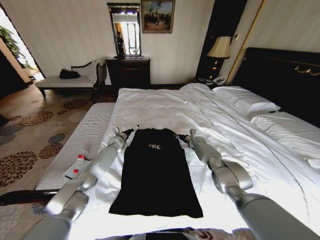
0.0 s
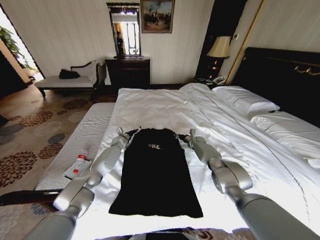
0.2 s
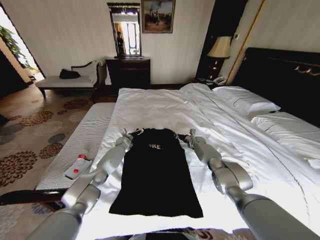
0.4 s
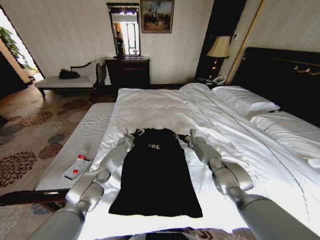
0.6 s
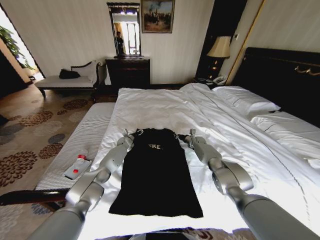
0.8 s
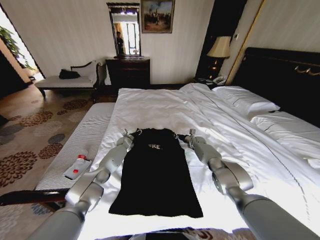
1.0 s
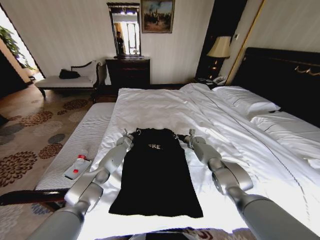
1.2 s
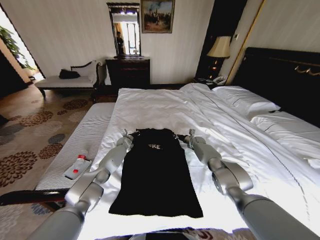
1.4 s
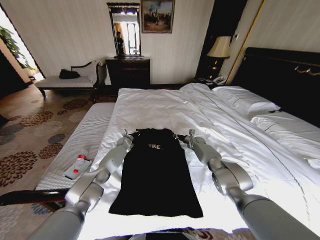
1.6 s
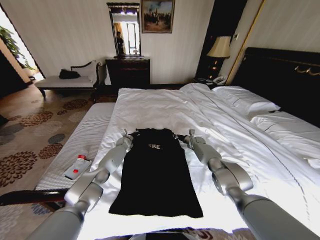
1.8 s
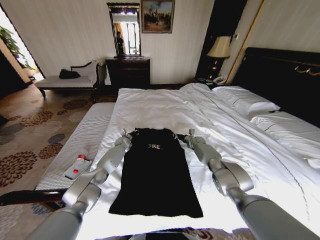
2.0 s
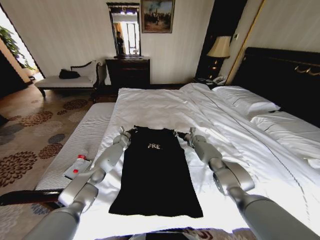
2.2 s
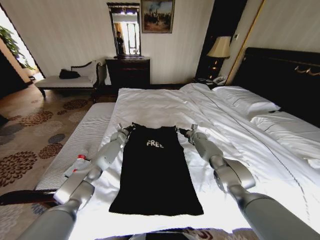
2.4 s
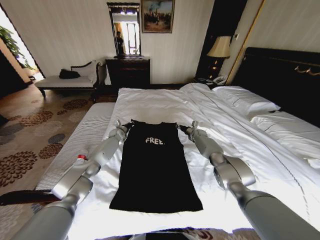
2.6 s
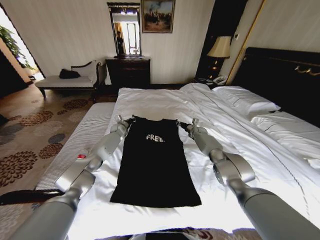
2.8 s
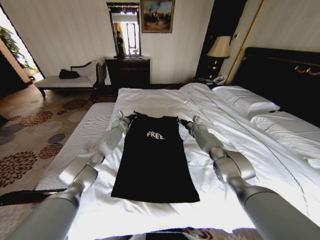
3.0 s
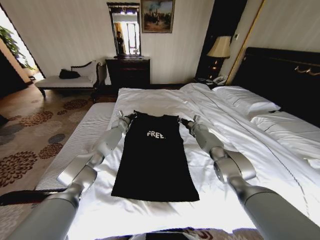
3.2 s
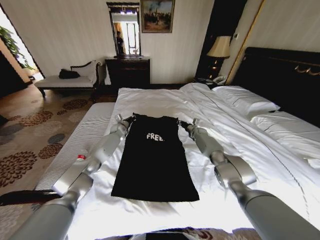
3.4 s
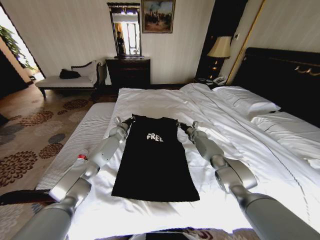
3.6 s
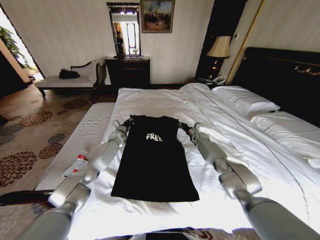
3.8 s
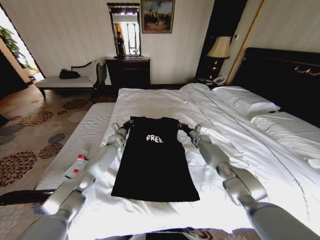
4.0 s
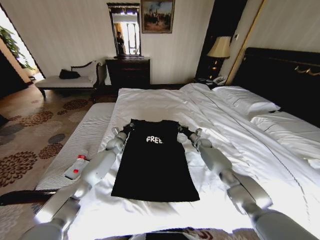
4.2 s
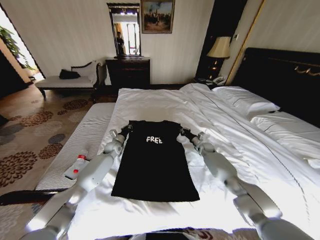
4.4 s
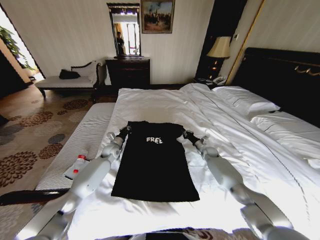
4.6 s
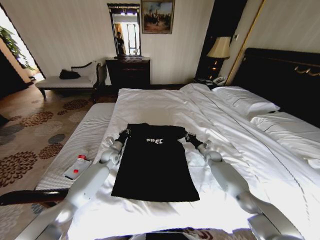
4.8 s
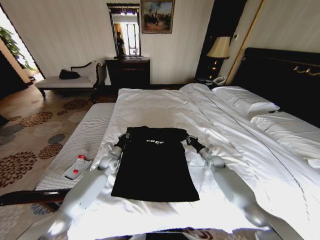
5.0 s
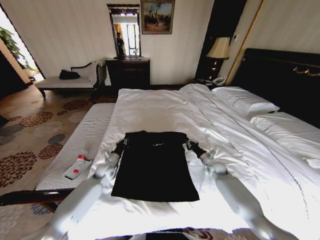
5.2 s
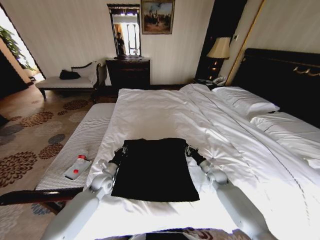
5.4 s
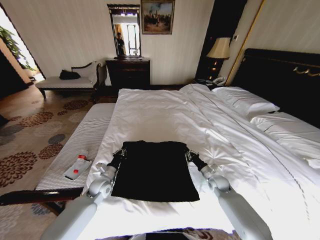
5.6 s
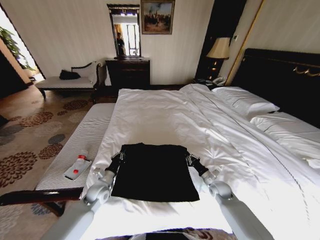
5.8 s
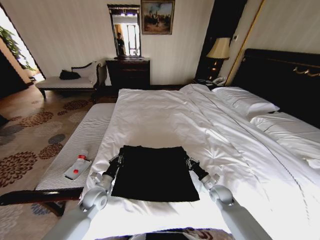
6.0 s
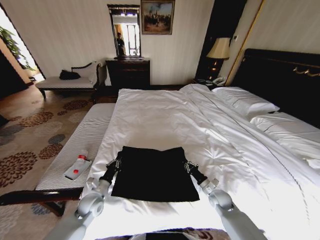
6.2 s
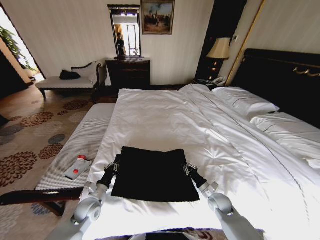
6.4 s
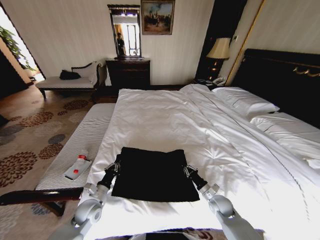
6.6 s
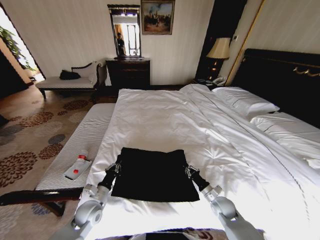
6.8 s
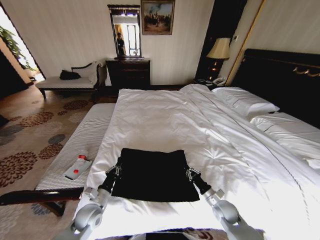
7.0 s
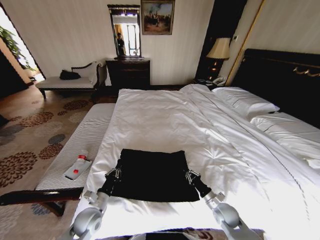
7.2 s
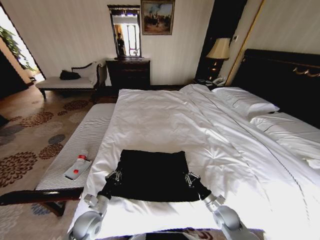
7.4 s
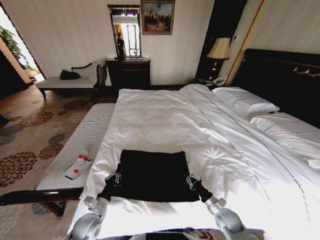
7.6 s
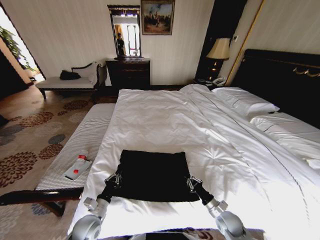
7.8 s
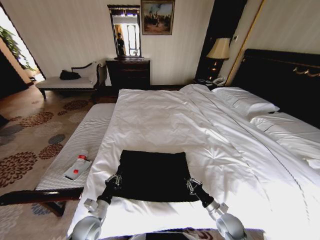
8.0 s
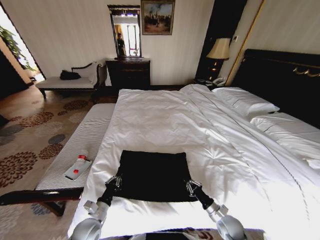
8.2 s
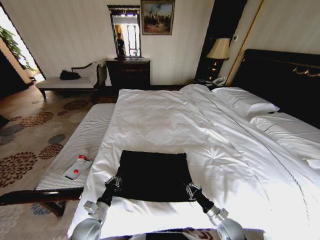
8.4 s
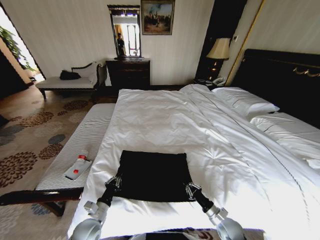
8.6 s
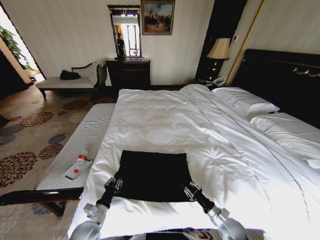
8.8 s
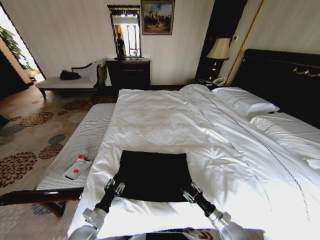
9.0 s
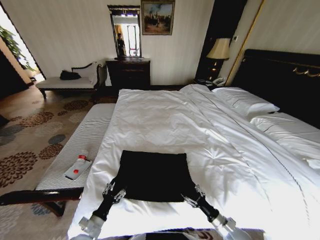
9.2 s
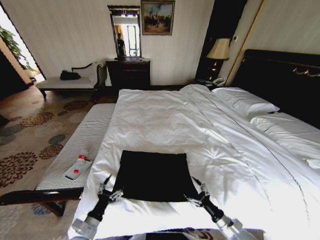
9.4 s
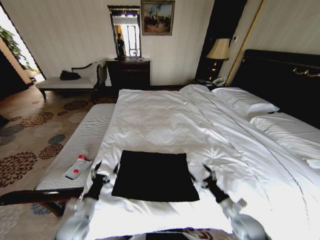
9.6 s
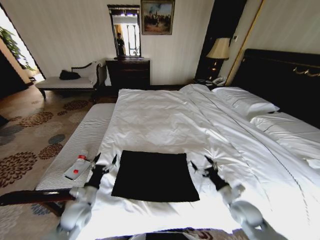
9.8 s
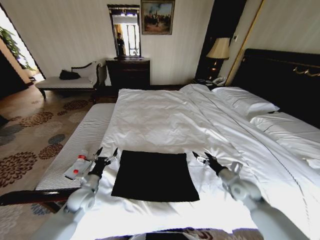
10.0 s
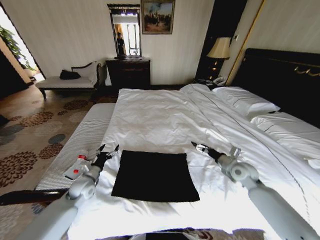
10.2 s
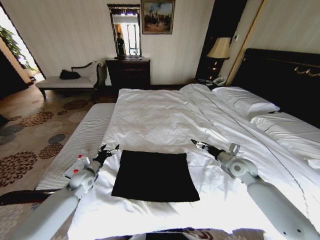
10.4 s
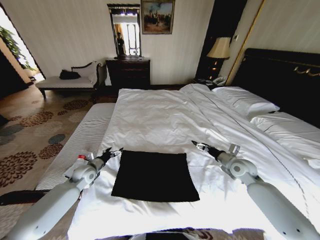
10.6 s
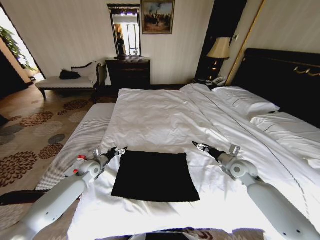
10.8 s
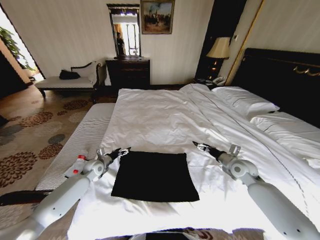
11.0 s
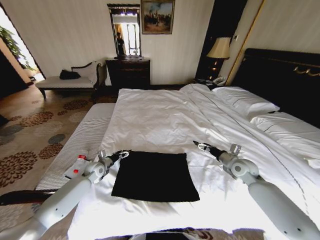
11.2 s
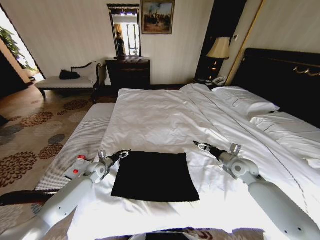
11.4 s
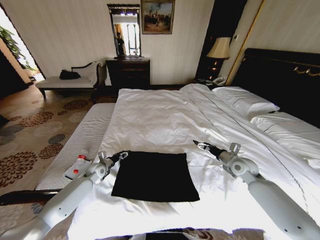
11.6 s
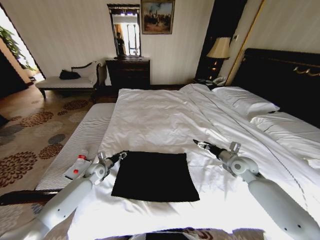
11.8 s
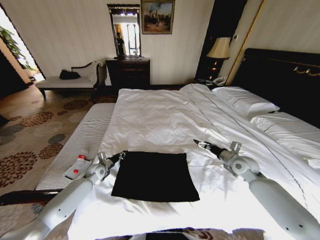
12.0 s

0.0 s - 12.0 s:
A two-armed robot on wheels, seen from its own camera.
Task of the whole recording: Fold the clothes on the bed.
0.0 s - 1.6 s: The left gripper changes place by about 5 cm, and closes its fingers.
1.6 s - 3.0 s: The left gripper is displaced upward and forward by approximately 10 cm. The right gripper is displaced upward by roughly 10 cm.
3.0 s - 4.4 s: Both grippers move backward and downward, about 15 cm.
4.4 s - 6.0 s: The two grippers go approximately 25 cm backward.
6.0 s - 7.6 s: The two grippers go about 10 cm backward.
7.6 s - 9.0 s: The left gripper opens its fingers. The right gripper shifts by approximately 5 cm, and opens its fingers.
9.0 s - 10.4 s: The right gripper shifts roughly 30 cm forward and upward, and opens up; the left gripper travels forward by some 20 cm, and opens its fingers.
10.4 s - 12.0 s: The left gripper heads forward and downward, covering about 10 cm, and closes up.

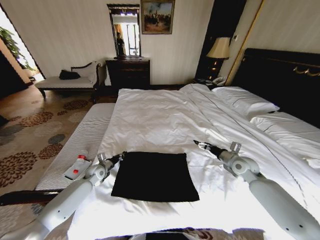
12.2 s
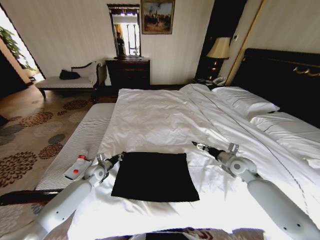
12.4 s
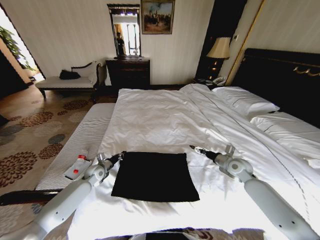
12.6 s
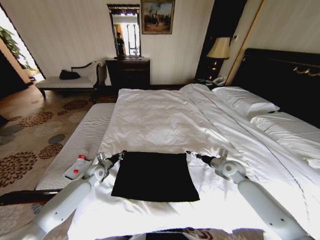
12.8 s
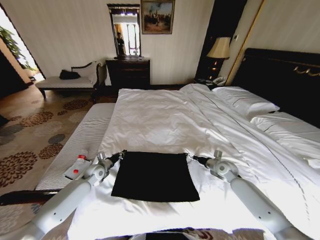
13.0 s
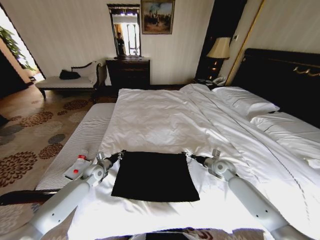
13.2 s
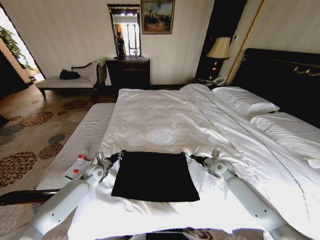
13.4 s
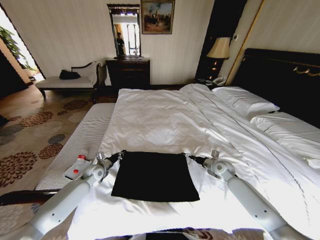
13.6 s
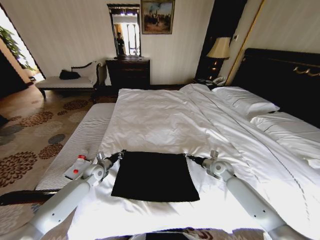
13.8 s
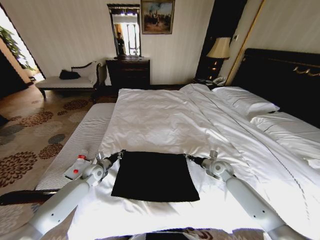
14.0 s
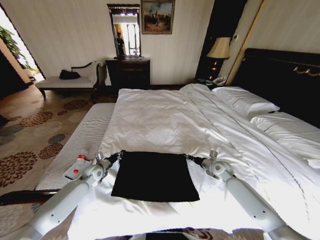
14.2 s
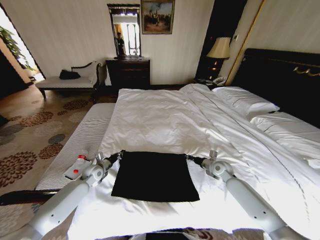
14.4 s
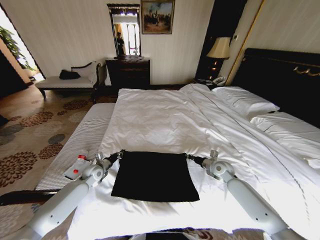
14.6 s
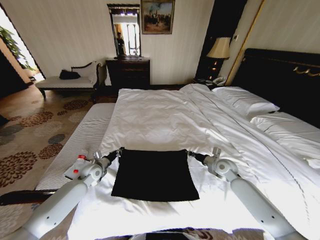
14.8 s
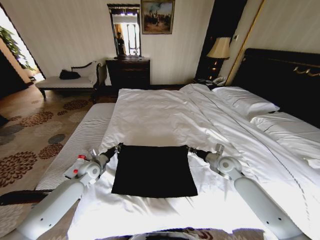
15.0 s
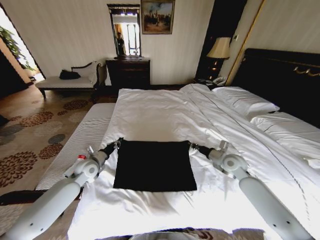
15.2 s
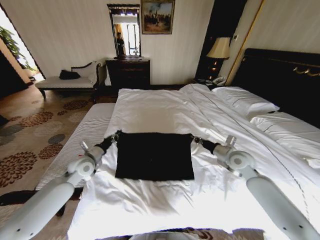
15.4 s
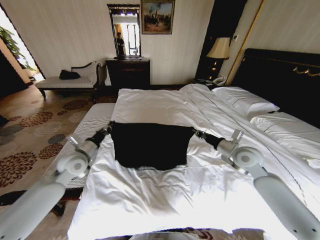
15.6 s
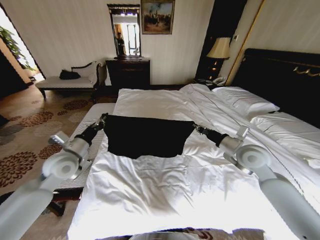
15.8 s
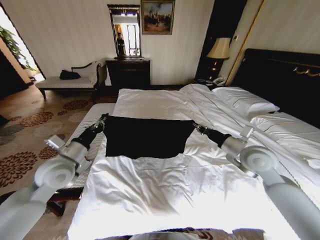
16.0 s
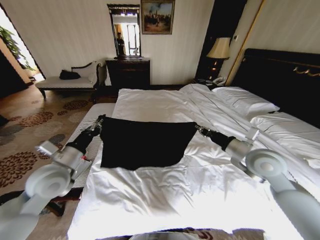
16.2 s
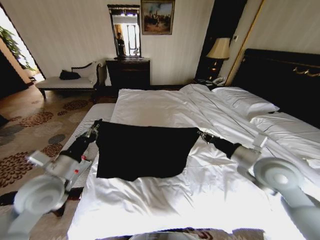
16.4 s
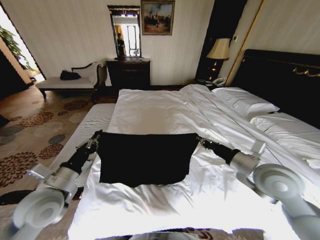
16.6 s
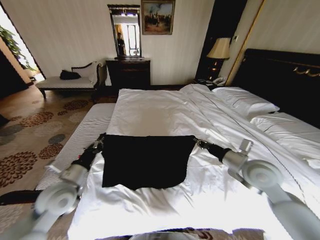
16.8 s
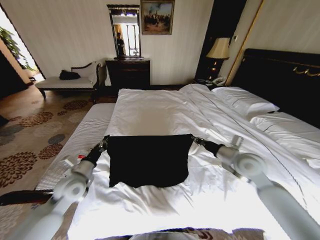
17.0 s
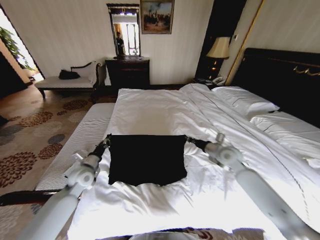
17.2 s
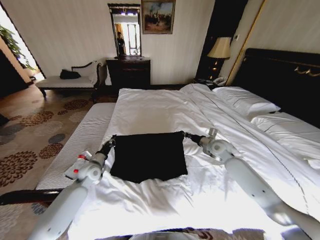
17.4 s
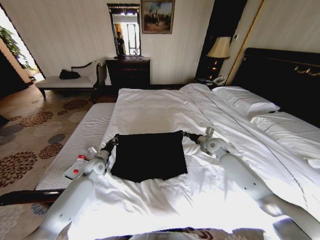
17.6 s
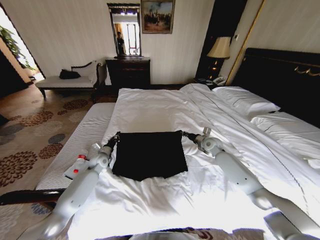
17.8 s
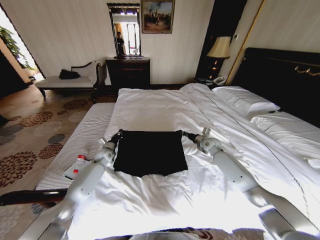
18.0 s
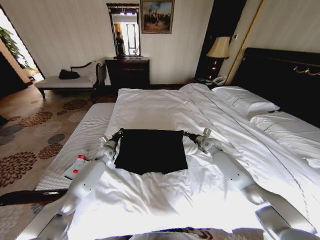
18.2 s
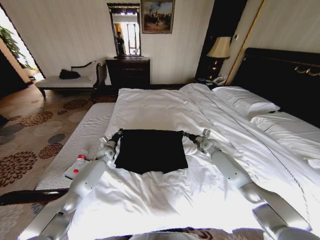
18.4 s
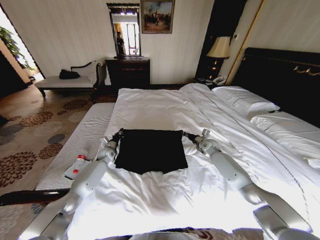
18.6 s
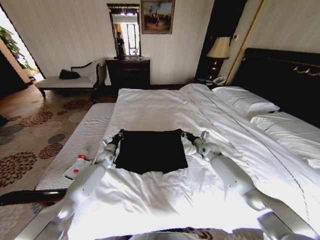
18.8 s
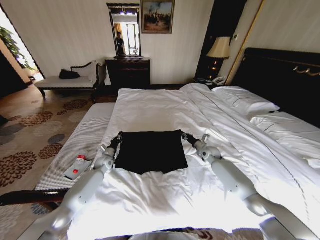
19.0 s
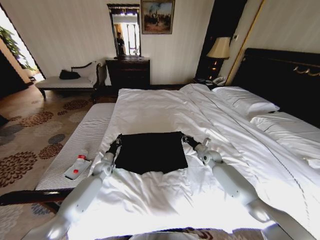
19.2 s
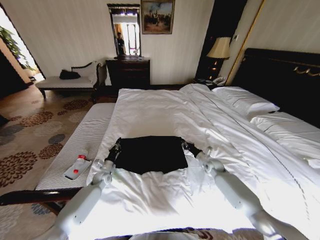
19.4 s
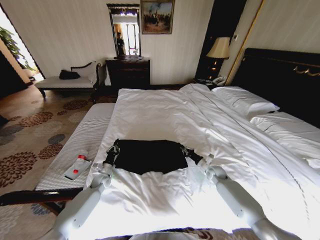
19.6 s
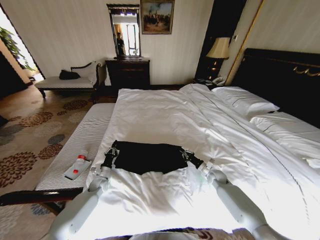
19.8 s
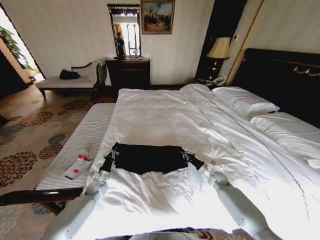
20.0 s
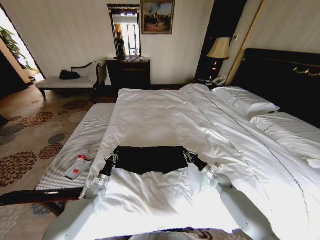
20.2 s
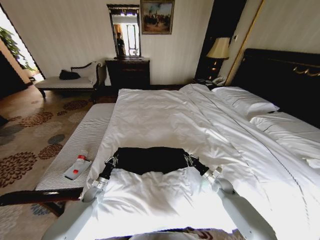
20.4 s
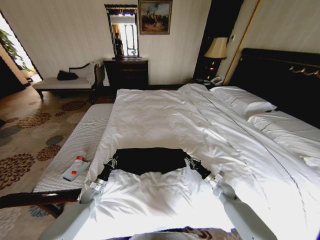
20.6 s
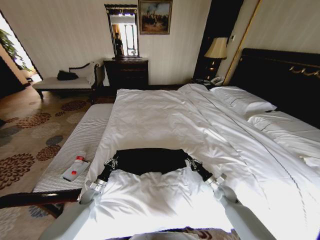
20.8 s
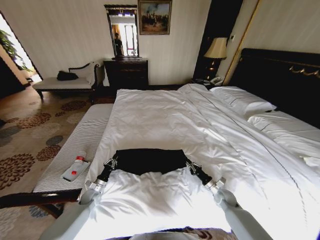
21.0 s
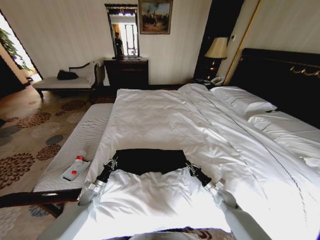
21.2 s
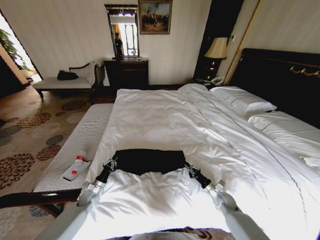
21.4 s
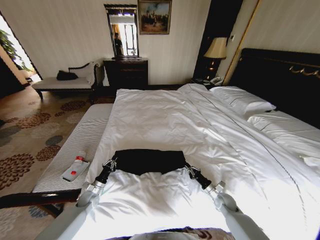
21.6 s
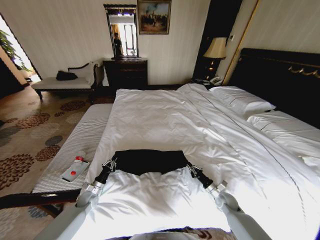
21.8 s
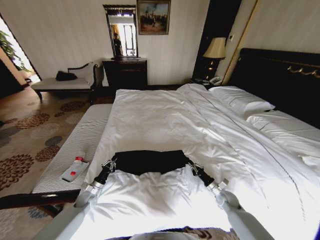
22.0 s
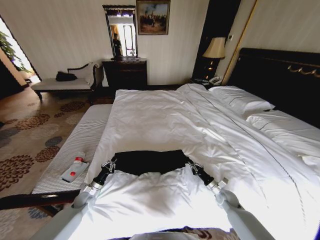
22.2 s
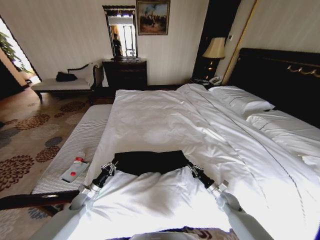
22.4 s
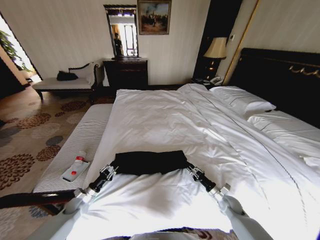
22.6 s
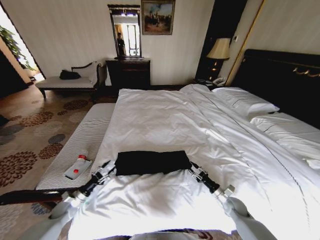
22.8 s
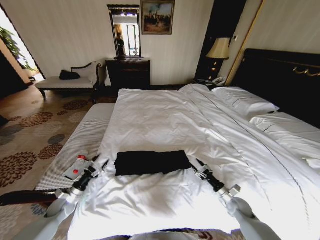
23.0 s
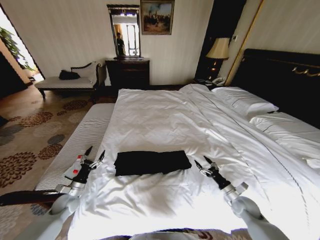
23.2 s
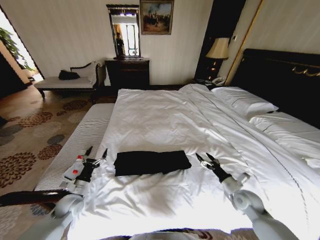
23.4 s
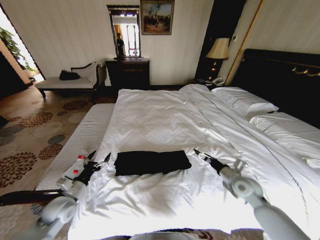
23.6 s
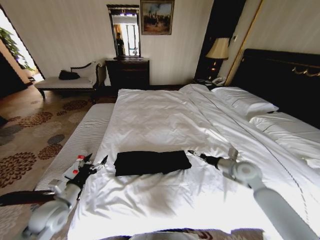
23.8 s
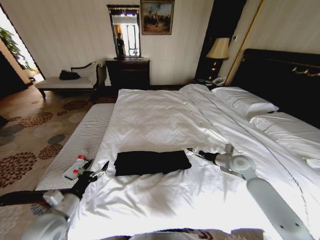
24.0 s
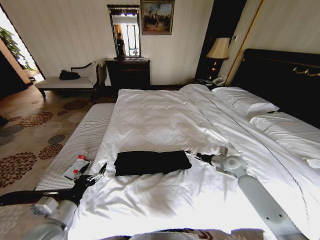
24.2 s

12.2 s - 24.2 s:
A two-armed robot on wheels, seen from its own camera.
Task of the whole recording: Fold the clothes on the bed.
12.2 s - 13.8 s: The right gripper is displaced downward by some 10 cm, and closes its fingers.
13.8 s - 15.2 s: The grippers both shift upward by about 10 cm. The right gripper closes.
15.2 s - 16.6 s: The grippers both shift backward and upward by about 20 cm.
16.6 s - 18.2 s: The two grippers go some 35 cm forward and downward.
18.2 s - 19.8 s: Both grippers move backward and downward, about 20 cm.
19.8 s - 21.2 s: The right gripper heads backward, covering roughly 10 cm. Meanwhile the left gripper heads backward, covering approximately 5 cm.
21.2 s - 22.6 s: The left gripper changes place by about 5 cm.
22.6 s - 24.2 s: The left gripper shifts some 25 cm upward and backward, and opens. The right gripper is displaced upward and forward by about 20 cm, and opens up.
